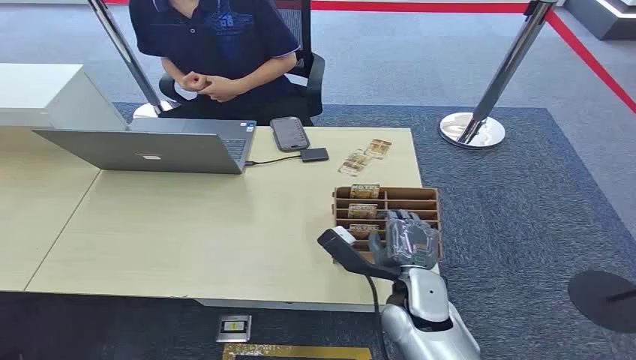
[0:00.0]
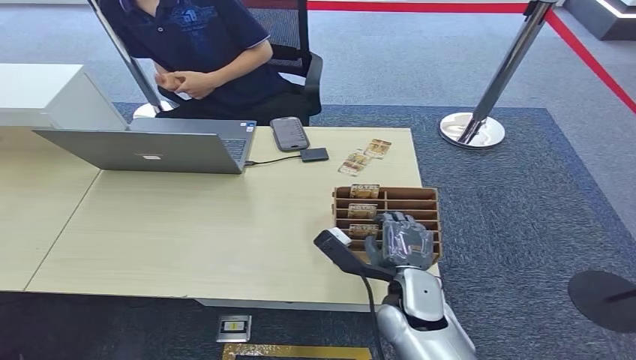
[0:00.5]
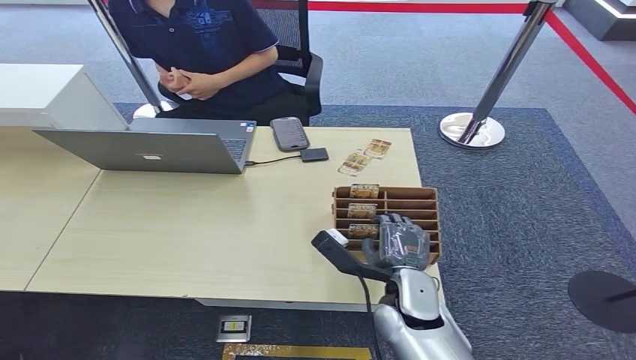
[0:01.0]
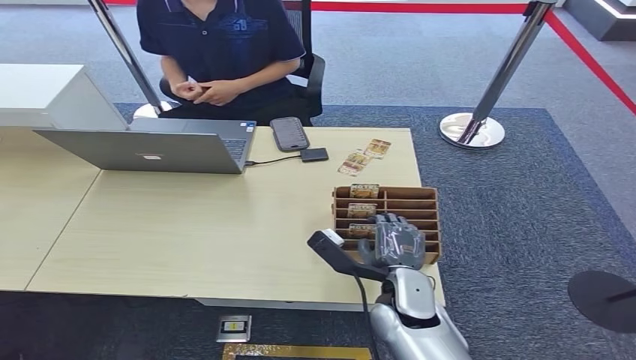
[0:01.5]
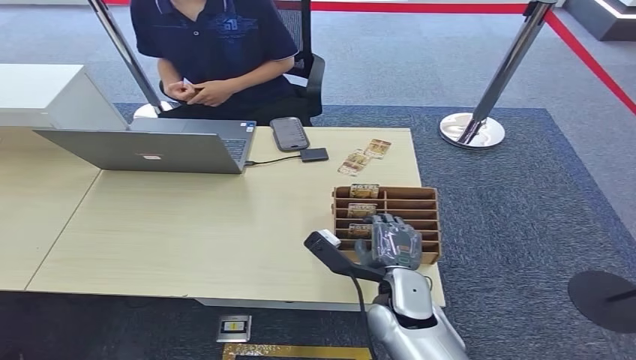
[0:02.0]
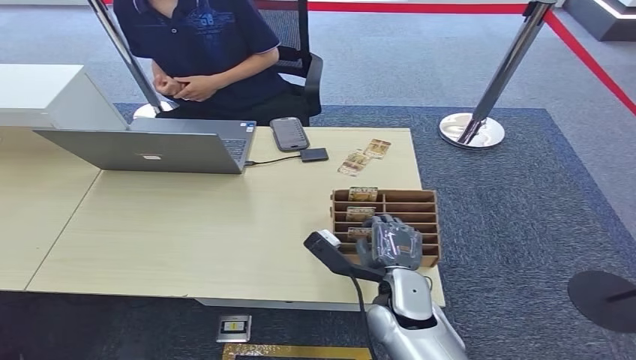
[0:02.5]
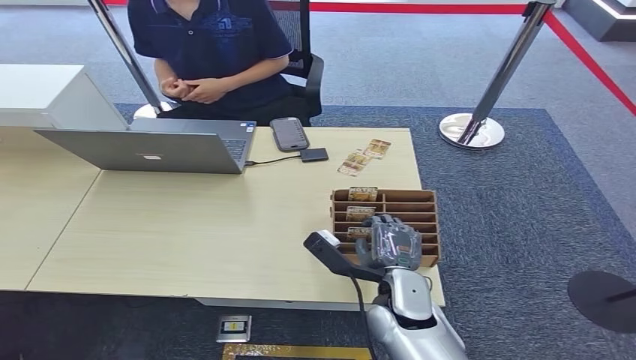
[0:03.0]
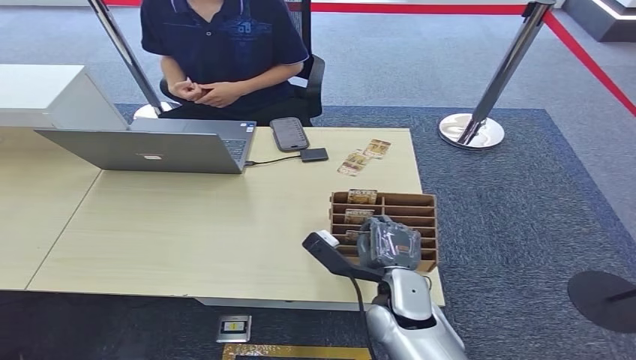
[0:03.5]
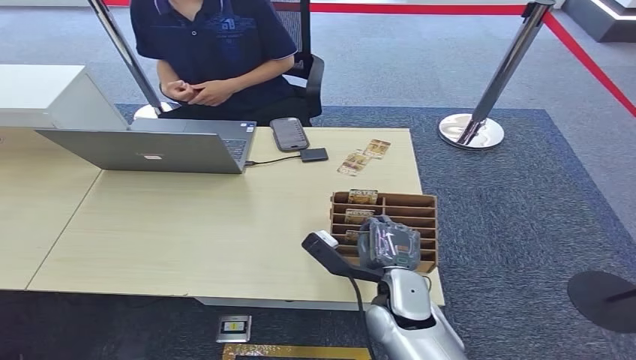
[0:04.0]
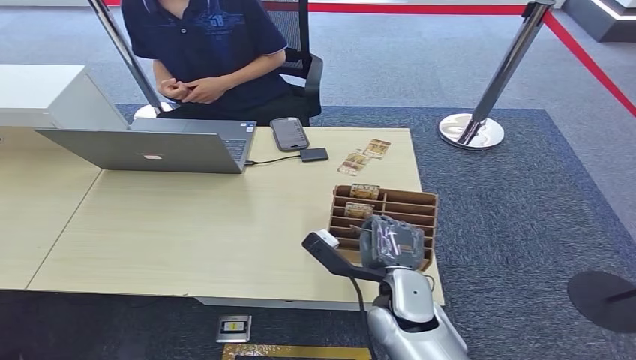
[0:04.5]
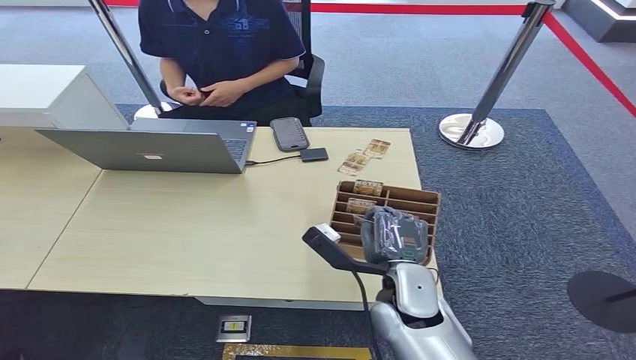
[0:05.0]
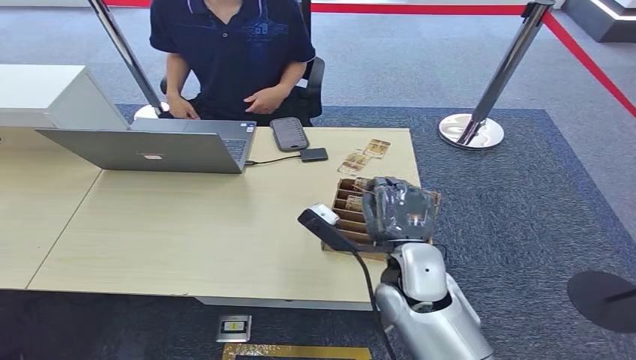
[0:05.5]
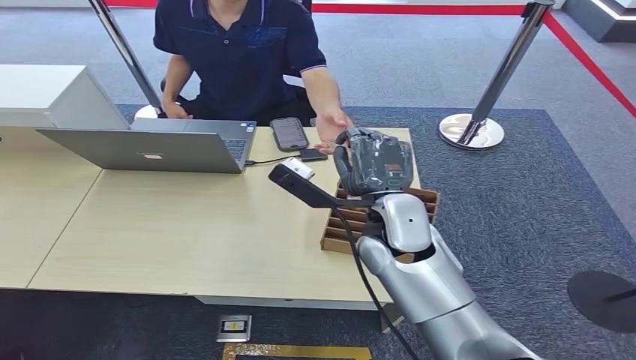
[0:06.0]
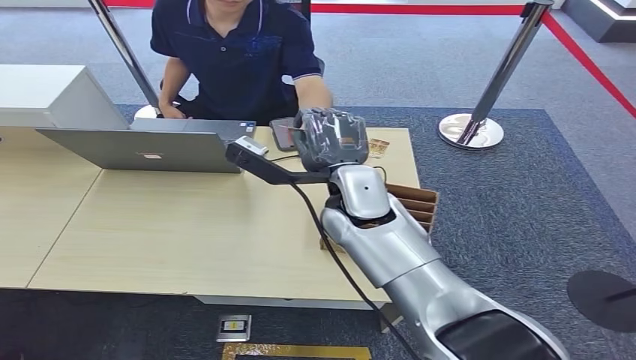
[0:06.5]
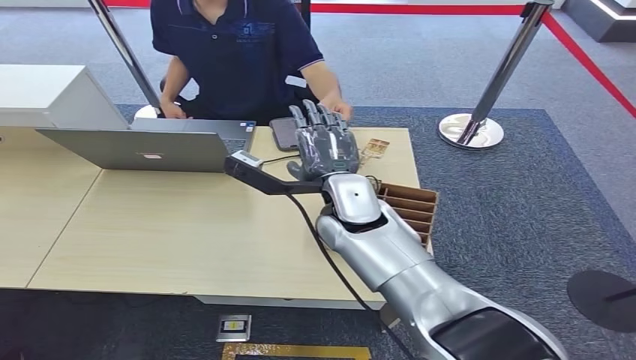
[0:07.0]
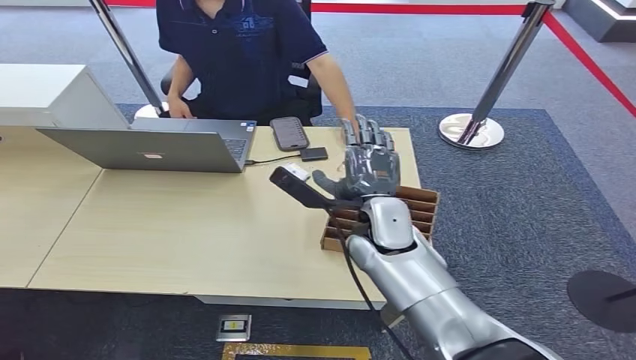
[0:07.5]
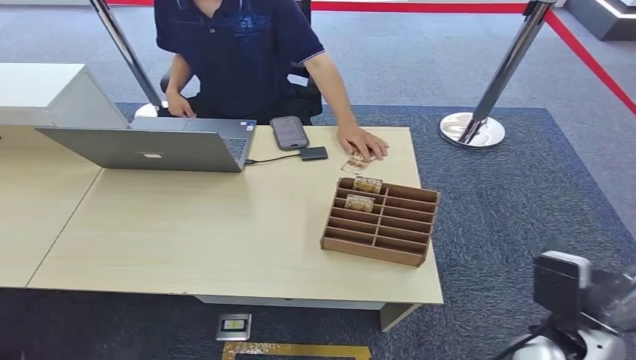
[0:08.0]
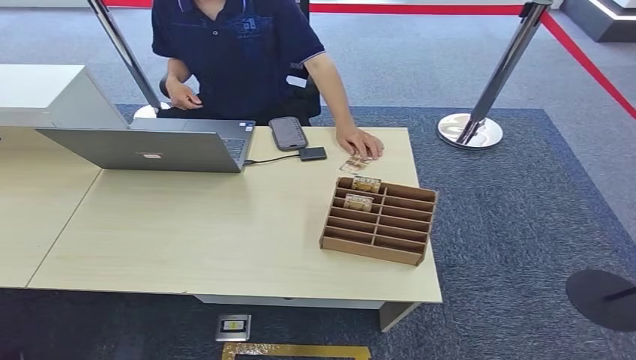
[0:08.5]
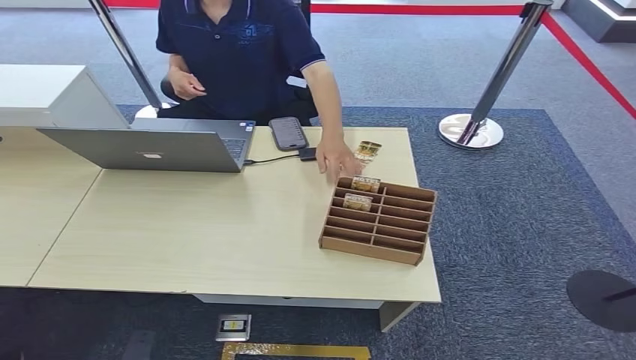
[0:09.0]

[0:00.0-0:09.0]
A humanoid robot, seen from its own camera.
Step, 0:00.0 to 0:05.0: Pick up the room card from the card holder.
Step, 0:06.0 to 0:09.0: Hand the room card to the target.
0:02.0 to 0:04.5: Neither hand changes place.
0:04.5 to 0:07.0: The right hand goes roughly 20 cm forward, upward and to the left.
0:07.0 to 0:09.0: The right hand travels backward, downward and to the right by roughly 50 cm.

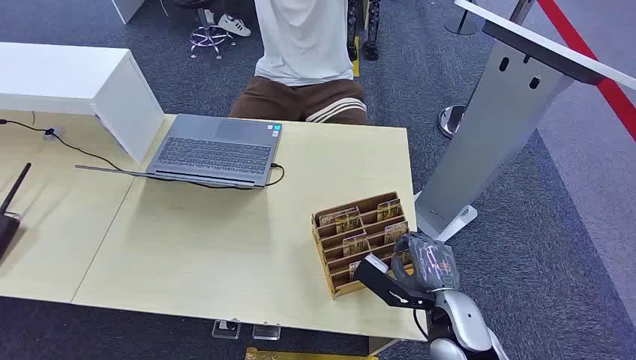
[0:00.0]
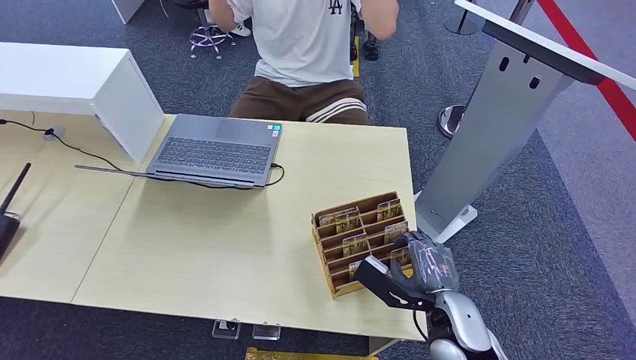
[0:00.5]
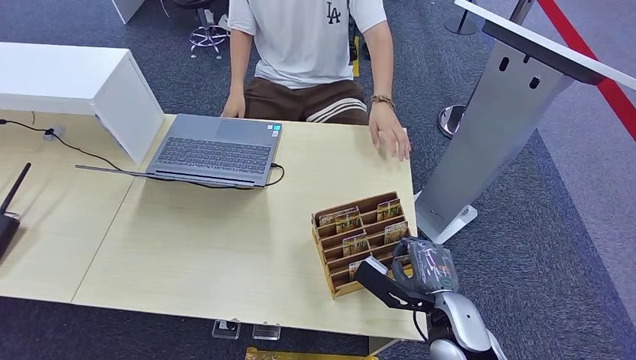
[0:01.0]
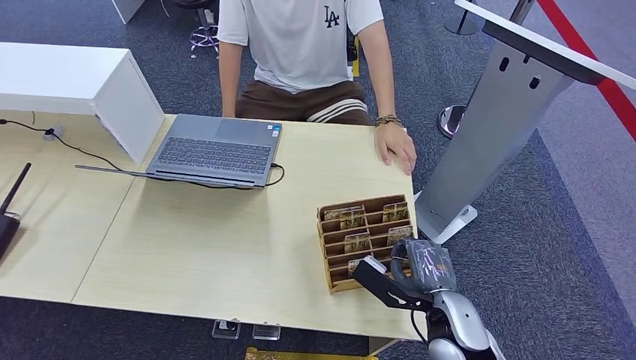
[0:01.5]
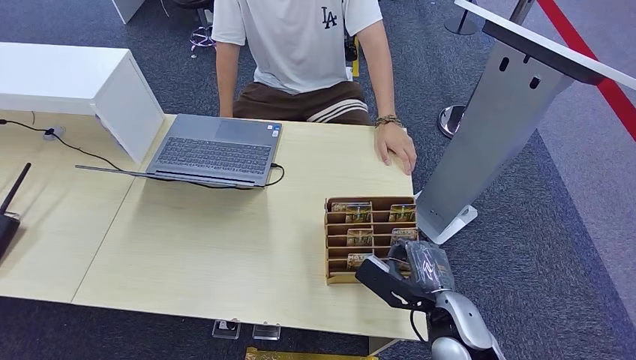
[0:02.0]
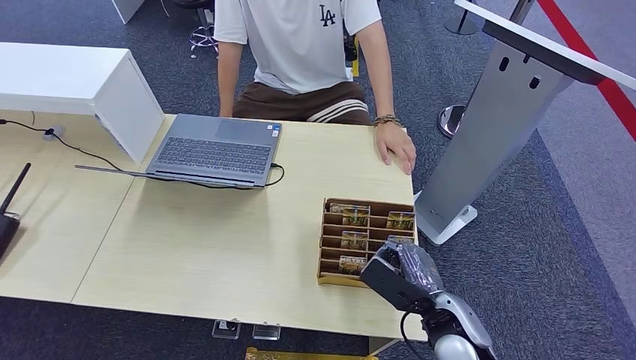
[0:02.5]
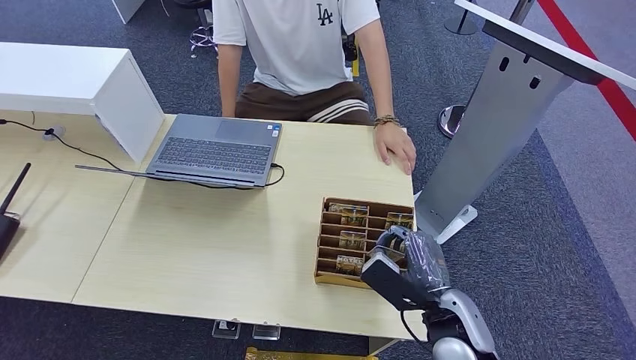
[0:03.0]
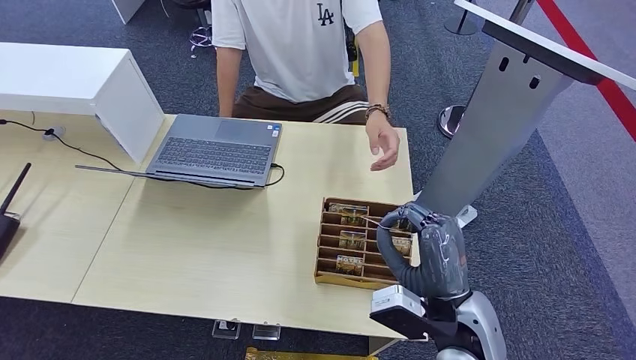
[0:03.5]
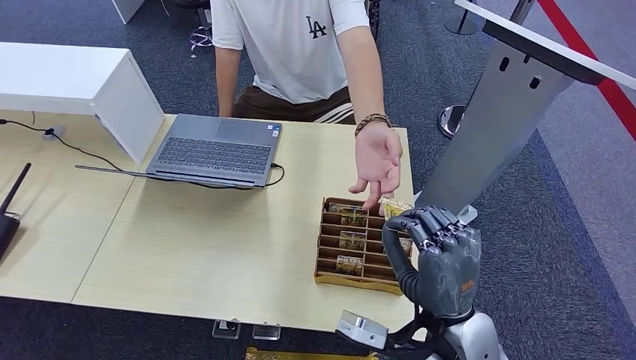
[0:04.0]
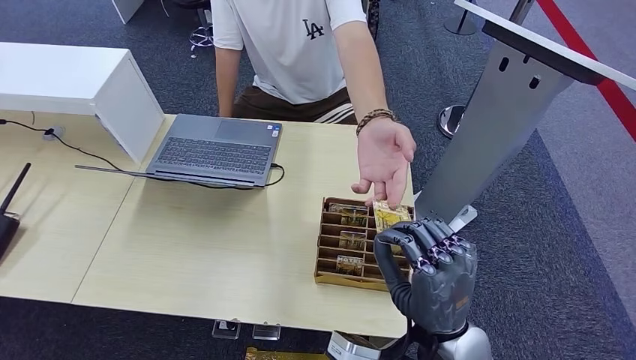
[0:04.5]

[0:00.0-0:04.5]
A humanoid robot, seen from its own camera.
Step, 0:00.0 to 0:02.5: Pick up the room card from the card holder.
Step, 0:03.0 to 0:04.5: Hand the room card to the target.
0:02.0 to 0:04.5: The right hand travels upward by roughly 10 cm.

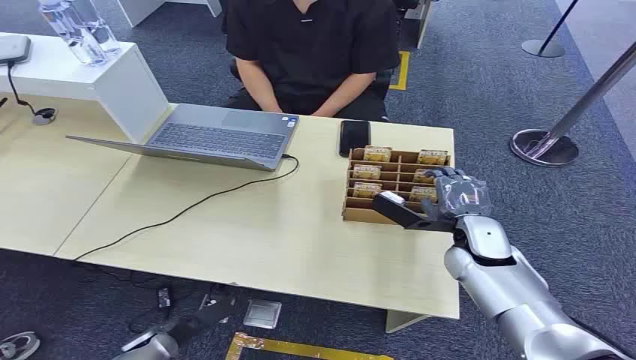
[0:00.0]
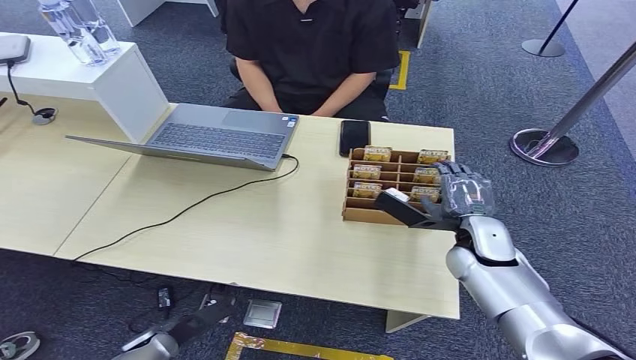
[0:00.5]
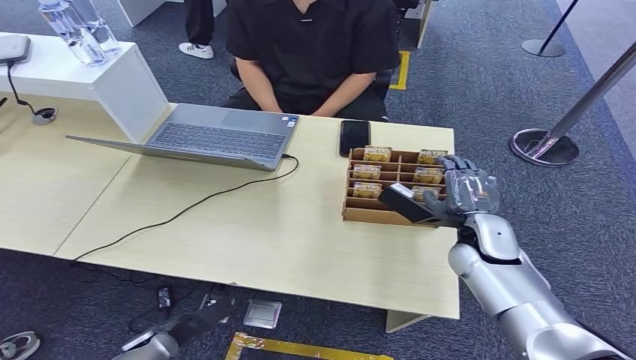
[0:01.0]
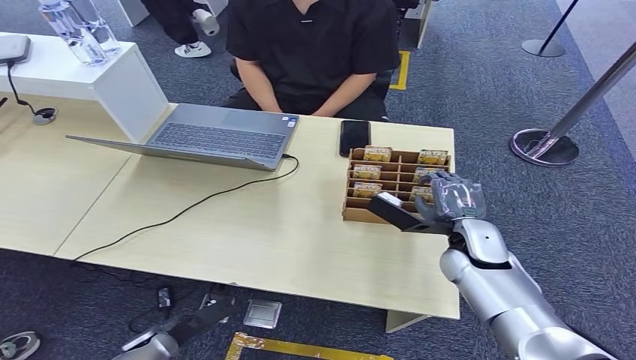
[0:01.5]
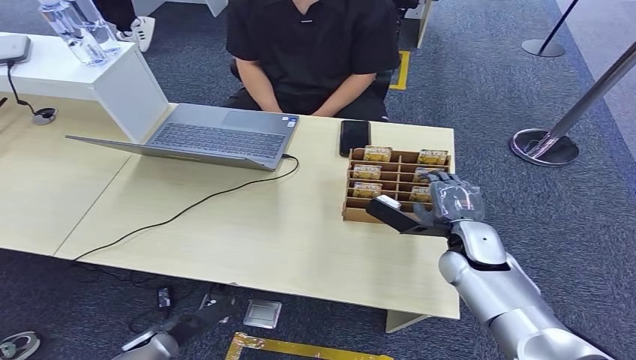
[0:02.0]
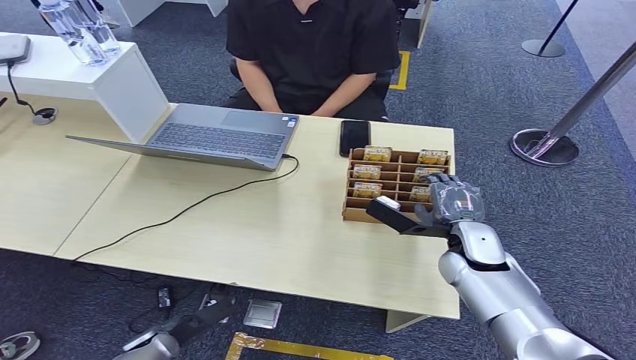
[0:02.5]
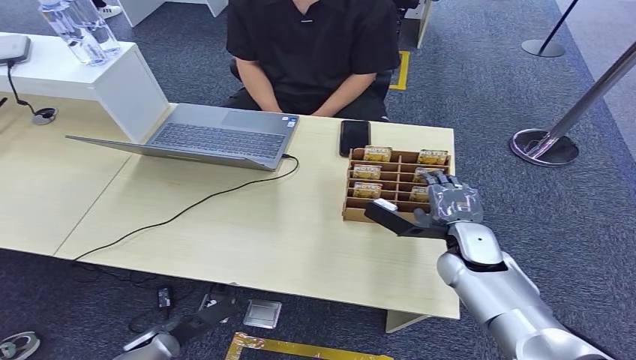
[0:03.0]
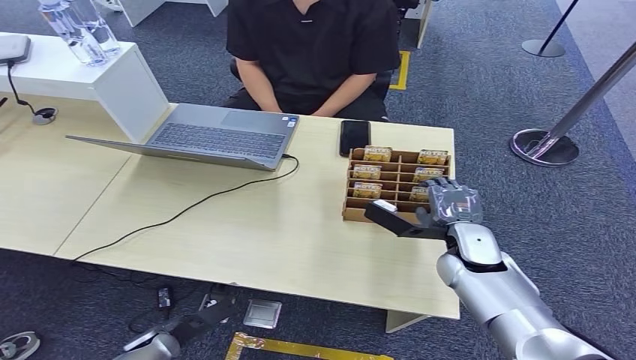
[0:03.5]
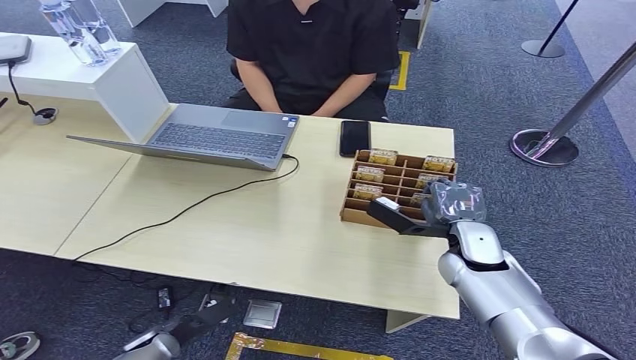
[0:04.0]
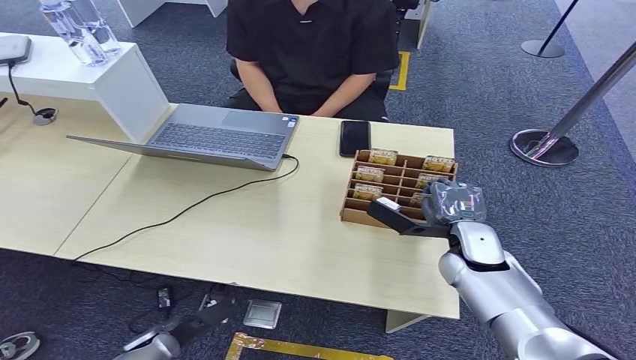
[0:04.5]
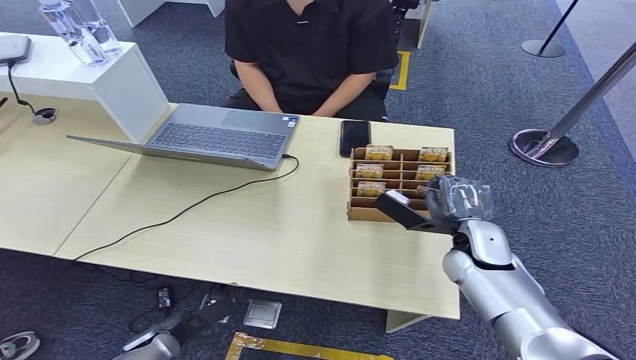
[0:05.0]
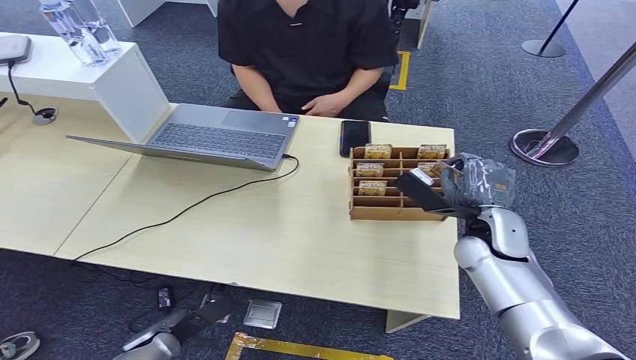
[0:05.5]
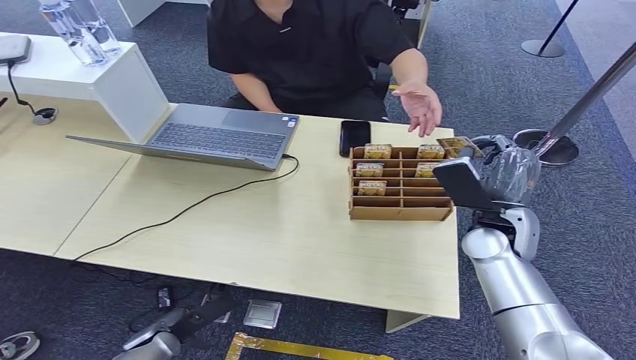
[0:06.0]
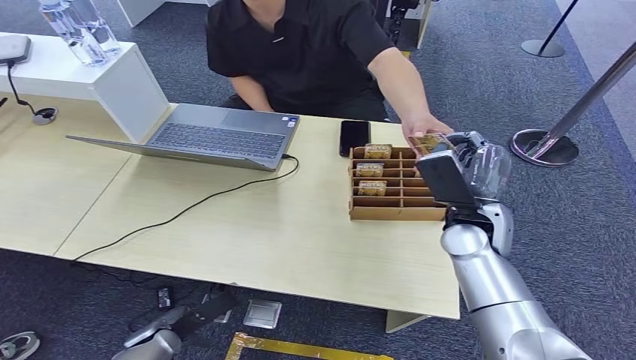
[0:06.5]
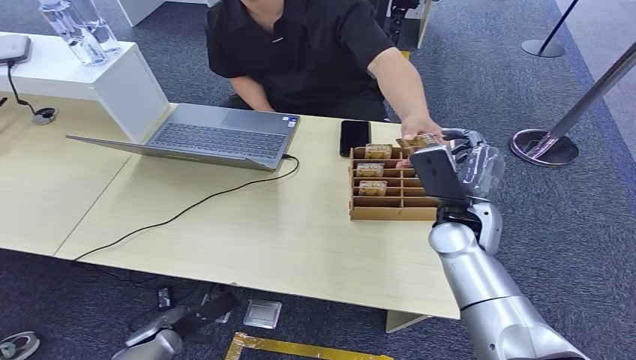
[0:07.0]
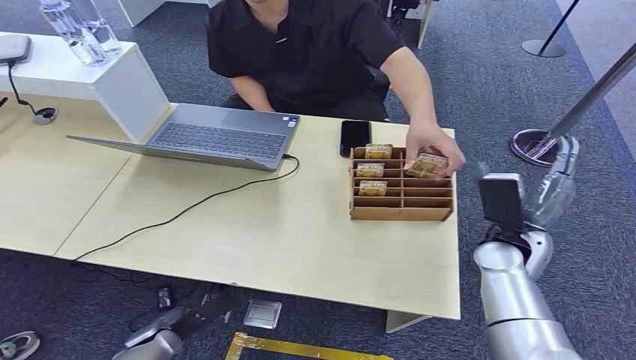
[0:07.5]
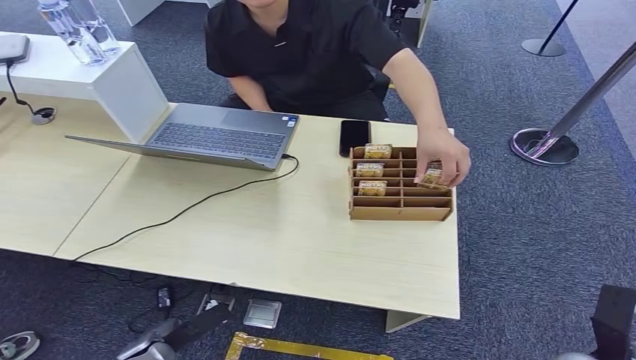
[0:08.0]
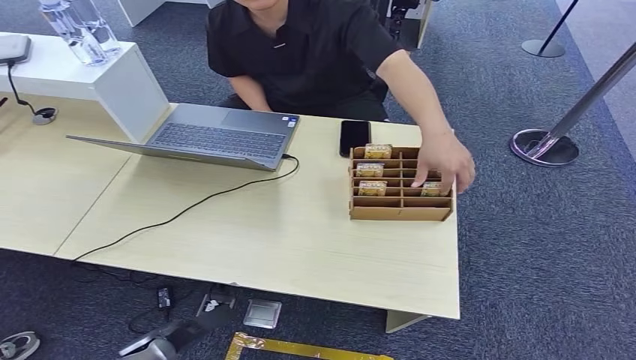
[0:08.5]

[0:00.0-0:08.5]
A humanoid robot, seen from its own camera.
Step, 0:00.0 to 0:06.0: Pick up the room card from the card holder.
Step, 0:06.5 to 0:08.5: Hand the room card to the target.
0:02.0 to 0:04.0: The hands move only a little.
0:04.0 to 0:06.5: The right hand is displaced upward by roughly 5 cm.
0:06.5 to 0:08.5: The right hand travels backward, downward and to the right by some 40 cm.
